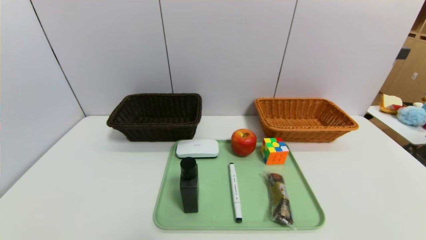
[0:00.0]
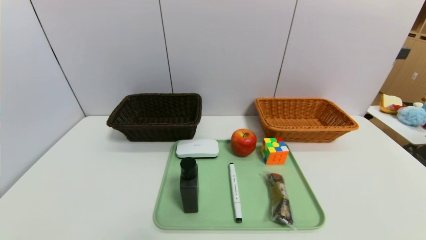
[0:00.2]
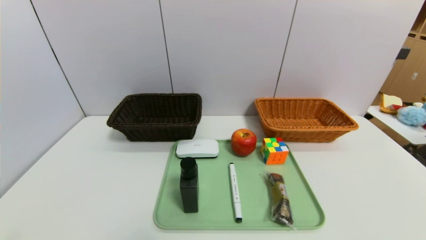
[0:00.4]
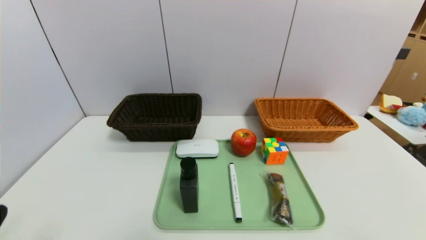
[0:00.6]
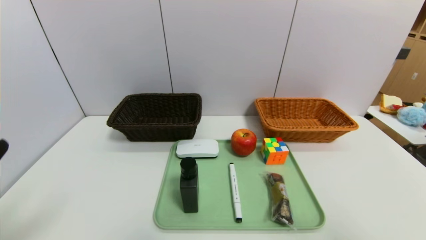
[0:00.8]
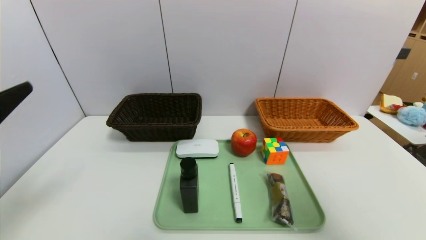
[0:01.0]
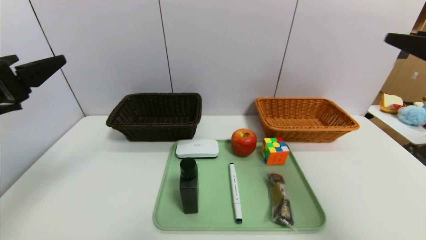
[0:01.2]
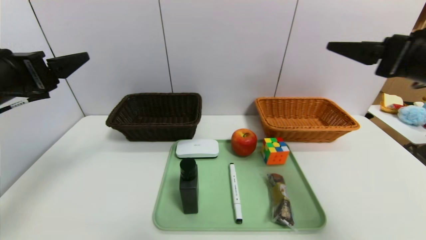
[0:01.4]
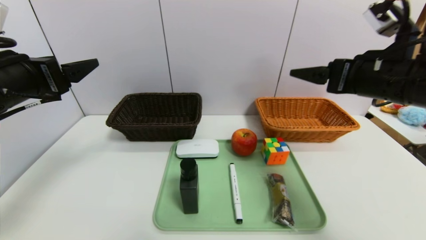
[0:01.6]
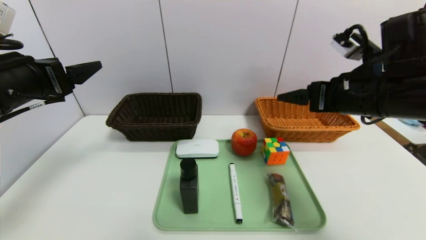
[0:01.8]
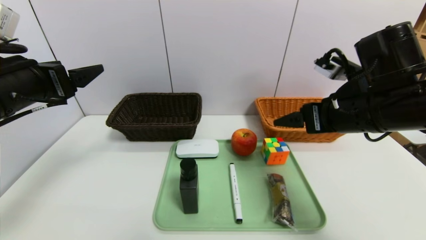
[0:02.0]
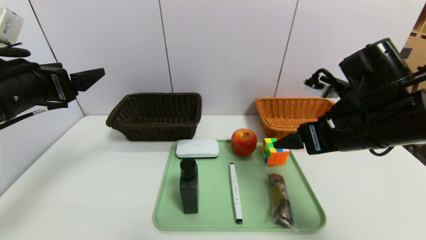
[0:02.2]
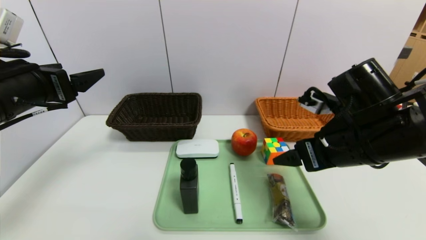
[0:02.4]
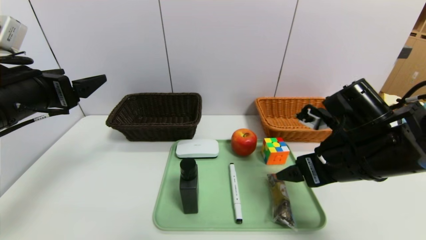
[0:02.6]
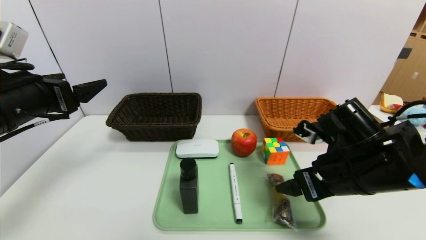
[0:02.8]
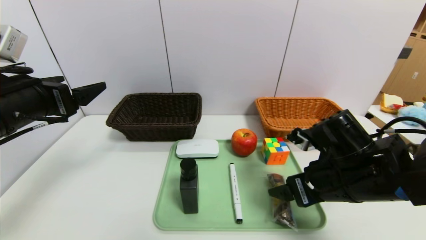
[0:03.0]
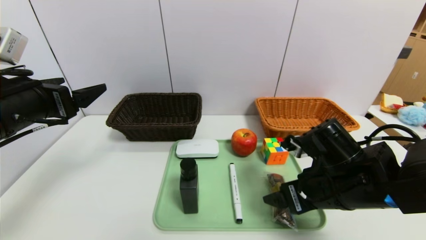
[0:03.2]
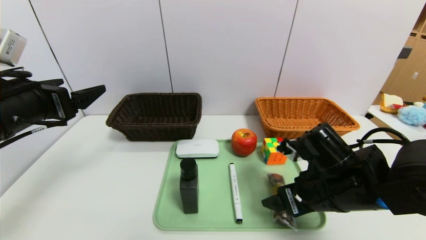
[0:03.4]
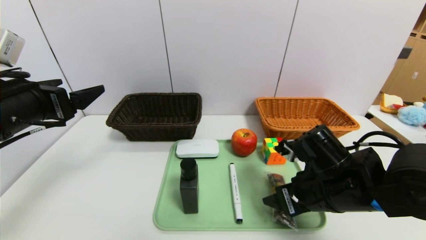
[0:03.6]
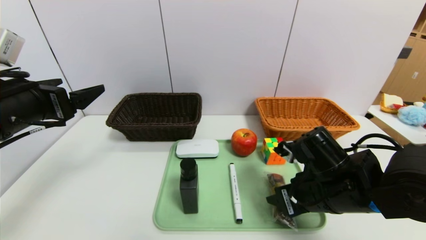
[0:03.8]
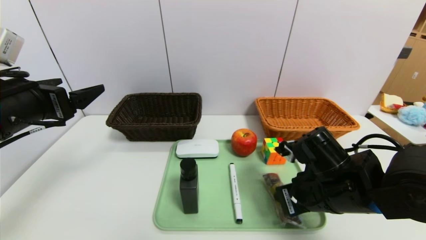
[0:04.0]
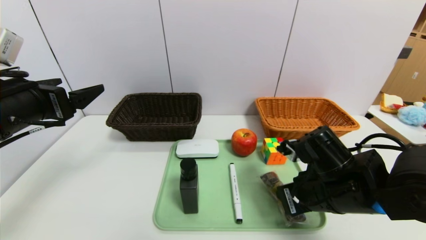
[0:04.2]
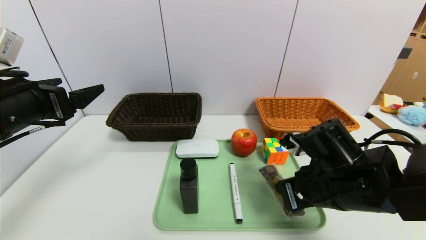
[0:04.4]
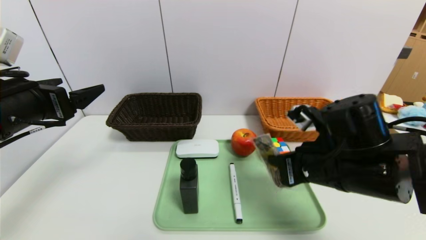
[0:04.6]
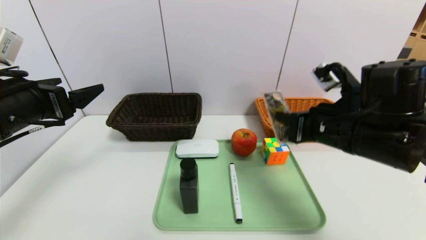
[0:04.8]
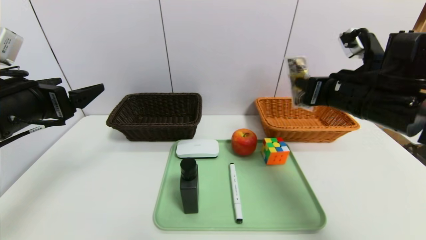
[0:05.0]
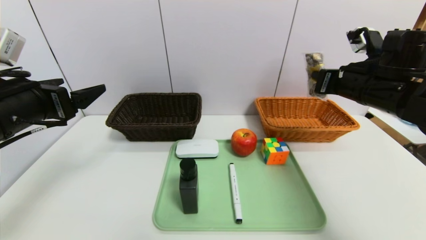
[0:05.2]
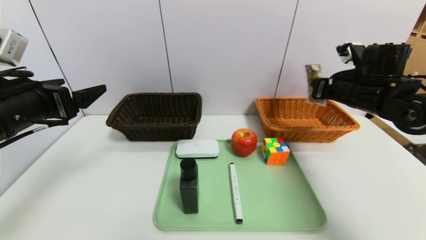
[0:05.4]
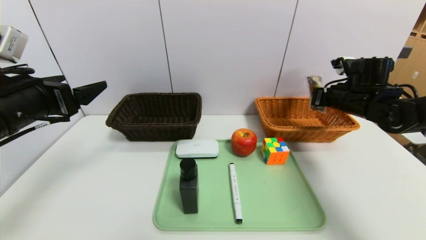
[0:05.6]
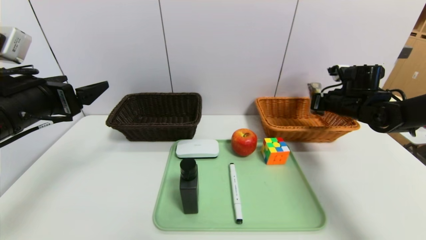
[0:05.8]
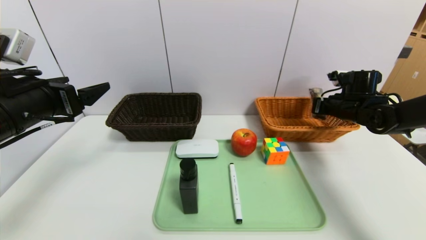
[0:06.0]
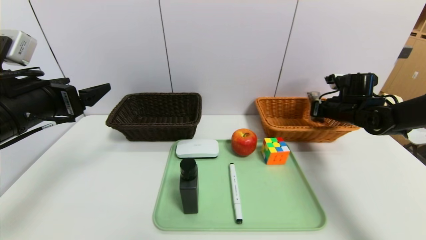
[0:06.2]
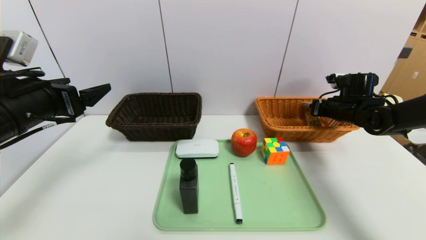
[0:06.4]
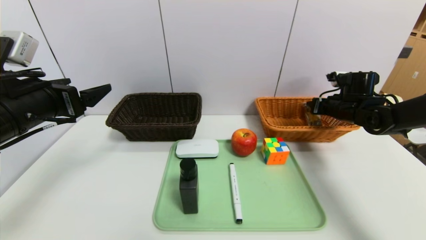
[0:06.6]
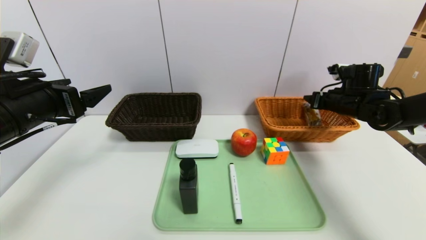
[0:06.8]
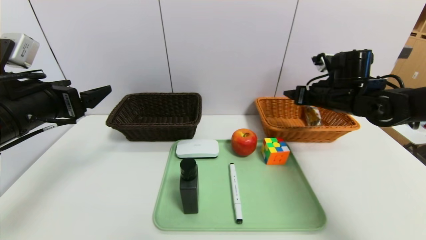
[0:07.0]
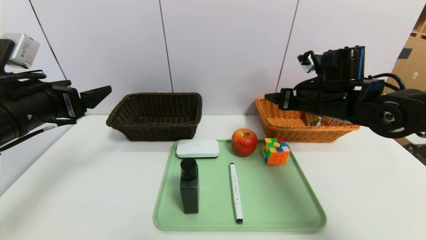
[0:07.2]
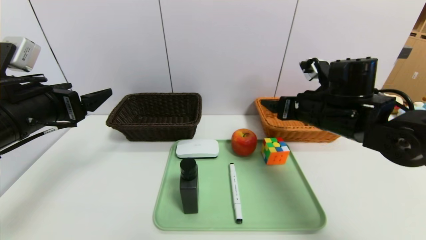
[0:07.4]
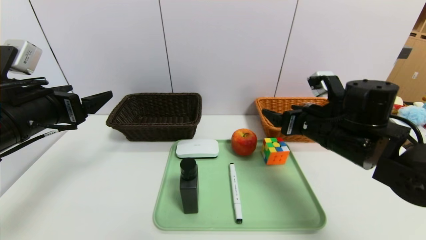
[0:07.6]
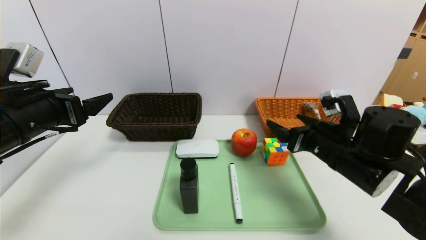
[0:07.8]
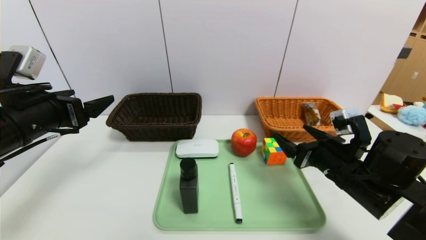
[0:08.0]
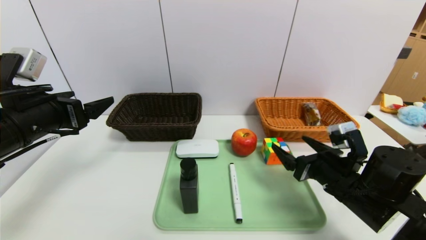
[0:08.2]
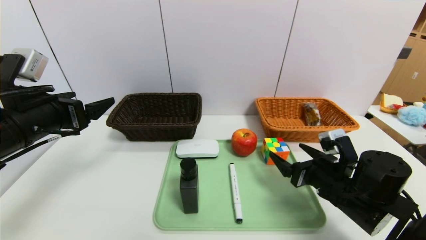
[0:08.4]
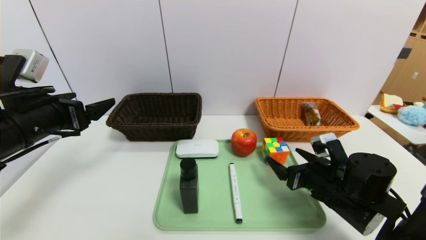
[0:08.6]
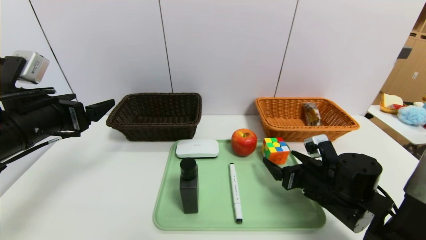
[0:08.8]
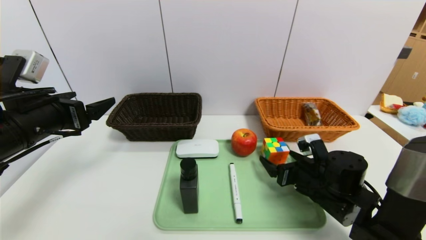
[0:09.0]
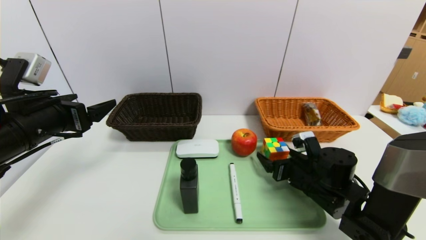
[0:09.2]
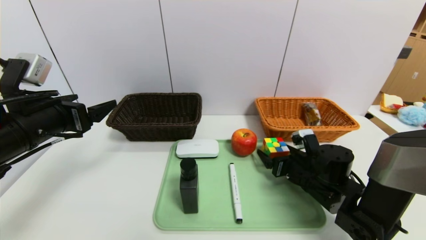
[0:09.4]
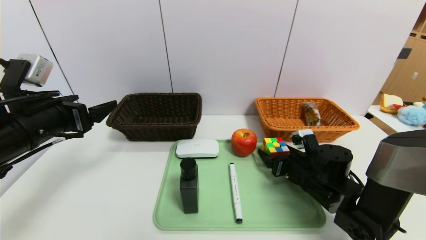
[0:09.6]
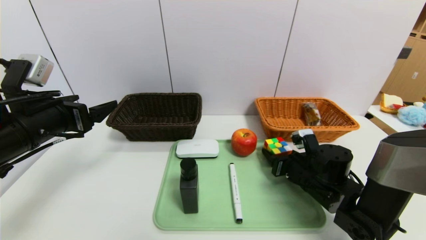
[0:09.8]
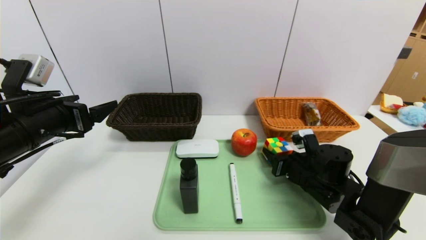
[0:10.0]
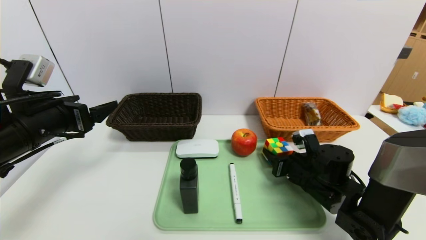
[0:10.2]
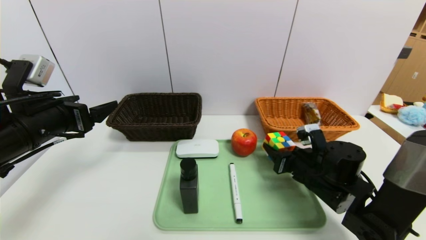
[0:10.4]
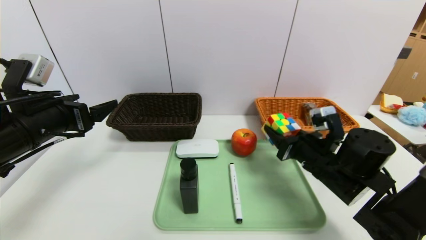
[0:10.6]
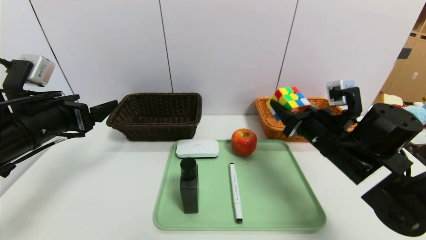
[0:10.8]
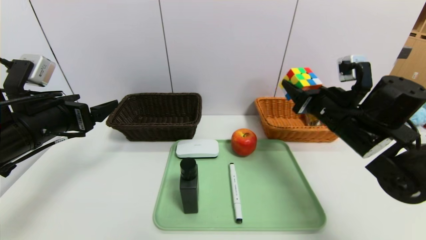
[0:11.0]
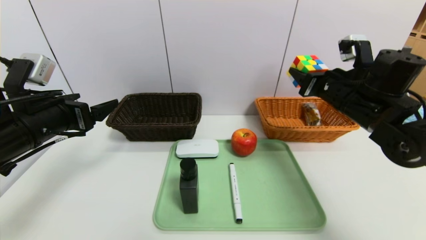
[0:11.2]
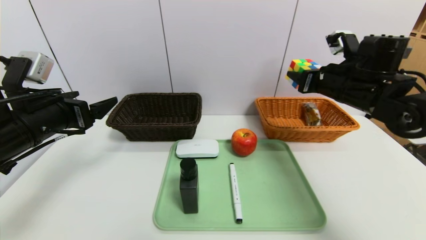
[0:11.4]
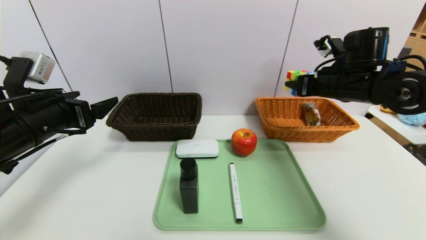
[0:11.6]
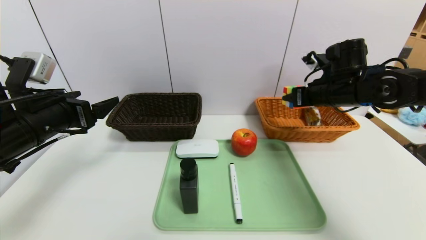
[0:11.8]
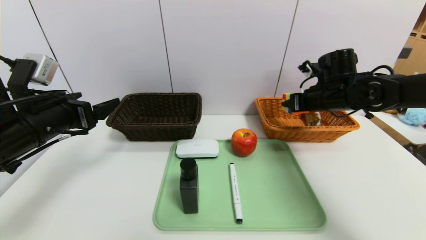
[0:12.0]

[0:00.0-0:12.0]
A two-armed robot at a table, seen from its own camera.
Task of the whole recording: place the food in the right basket with the right gripper, and place the non food items in the left basket with the left gripper.
Step, 0:00.0 to 0:06.8: Grasp the chocolate and put it in the right basket.
0:00.0 to 0:01.6: The grippers both shift forward and upward by roughly 35 cm.
0:01.6 to 0:03.0: The right gripper heads downward, covering approximately 15 cm.
0:03.0 to 0:04.4: The right gripper closes.
0:04.4 to 0:06.0: The right gripper goes about 25 cm forward and to the right.
0:06.0 to 0:07.6: The right gripper travels backward and to the left by some 20 cm, and opens up.
0:07.6 to 0:09.0: The right gripper goes about 15 cm downward.
0:09.0 to 0:10.4: The right gripper closes up.
0:10.4 to 0:12.0: The right gripper shifts approximately 20 cm upward, forward and to the right.

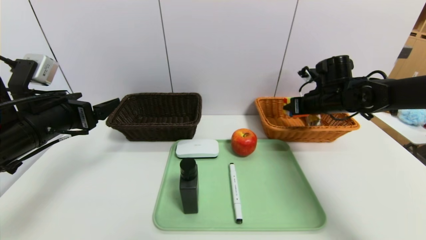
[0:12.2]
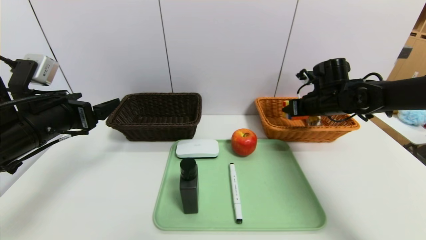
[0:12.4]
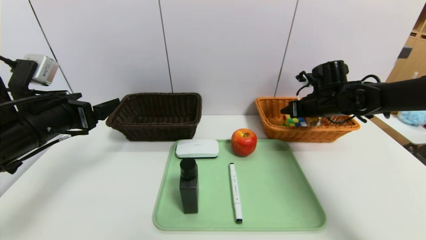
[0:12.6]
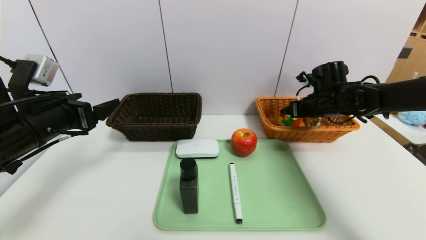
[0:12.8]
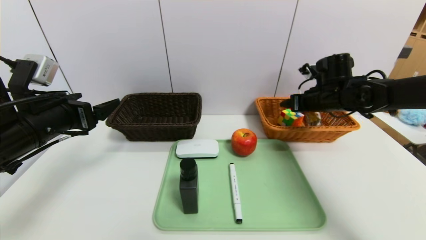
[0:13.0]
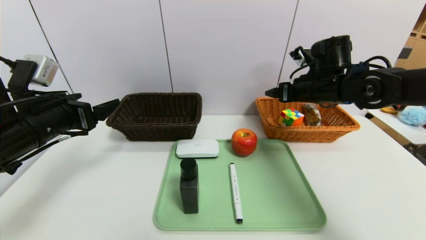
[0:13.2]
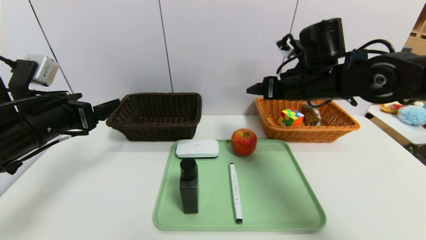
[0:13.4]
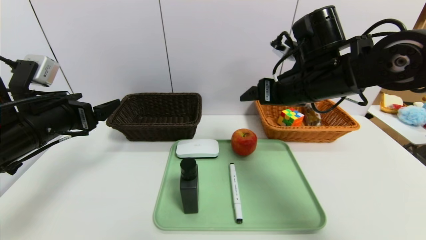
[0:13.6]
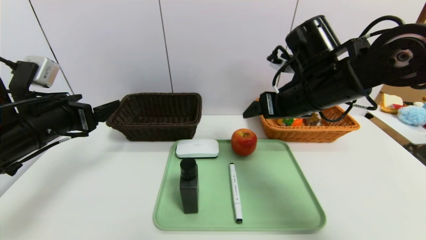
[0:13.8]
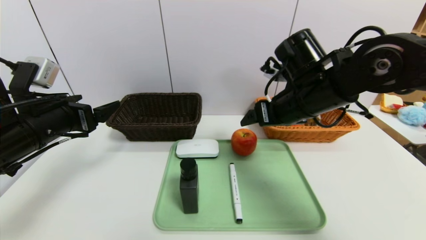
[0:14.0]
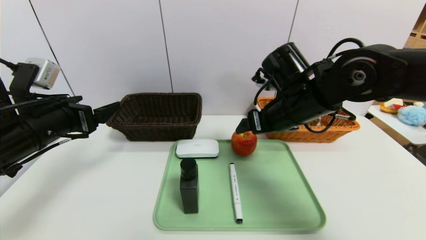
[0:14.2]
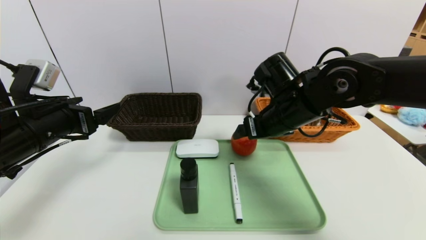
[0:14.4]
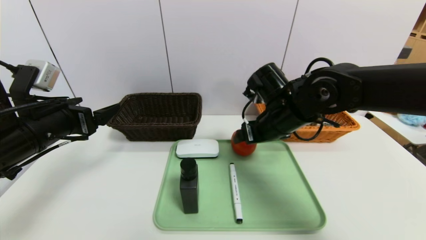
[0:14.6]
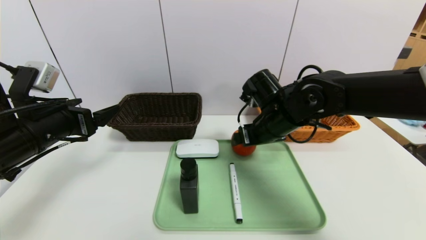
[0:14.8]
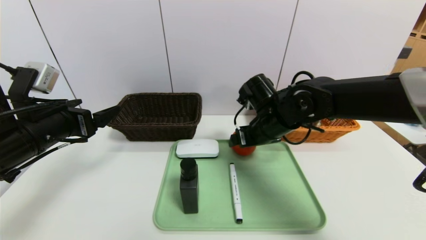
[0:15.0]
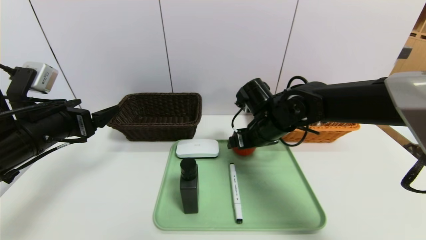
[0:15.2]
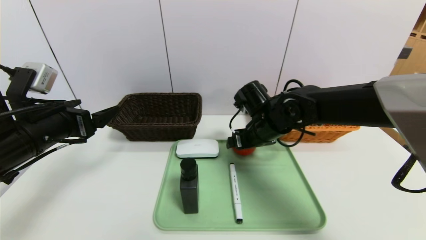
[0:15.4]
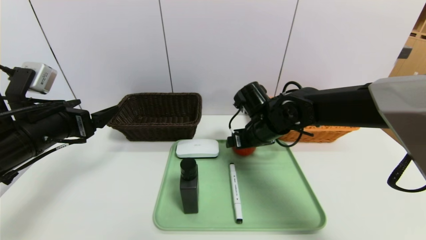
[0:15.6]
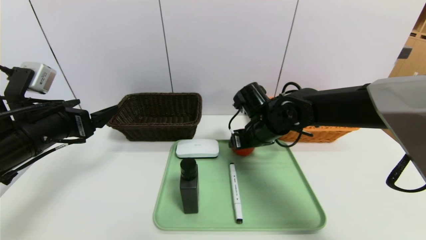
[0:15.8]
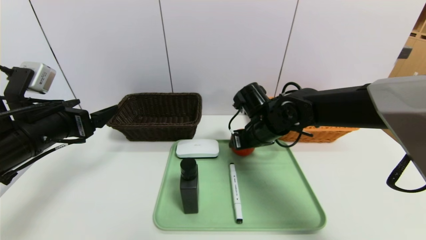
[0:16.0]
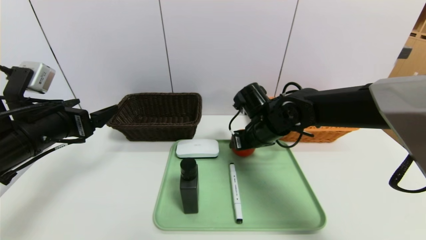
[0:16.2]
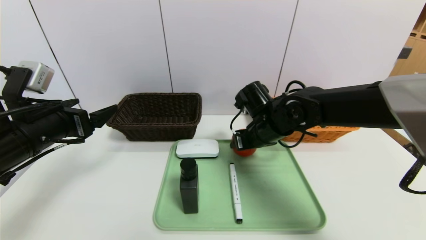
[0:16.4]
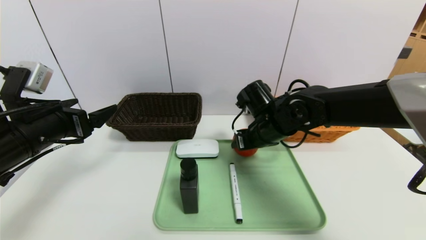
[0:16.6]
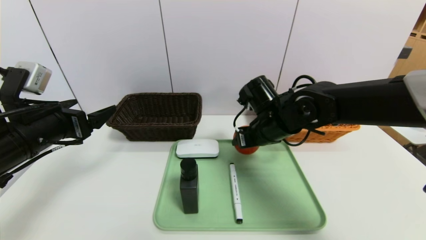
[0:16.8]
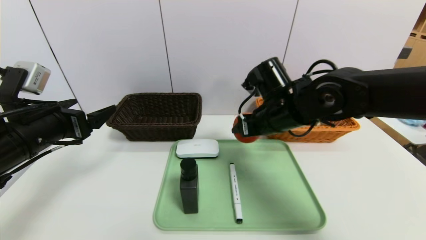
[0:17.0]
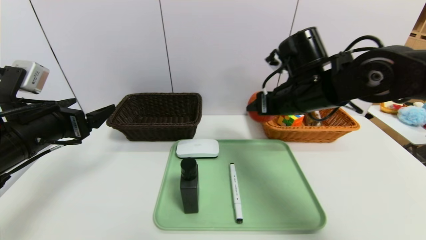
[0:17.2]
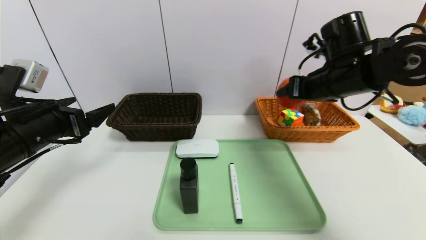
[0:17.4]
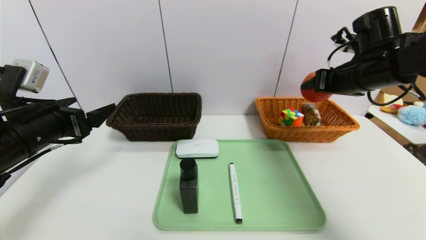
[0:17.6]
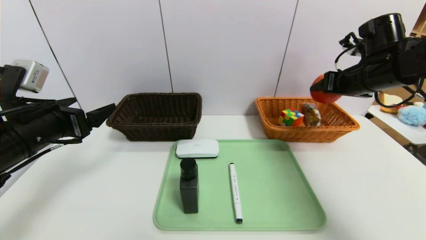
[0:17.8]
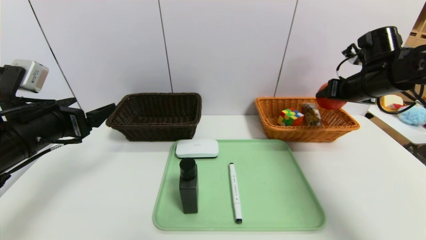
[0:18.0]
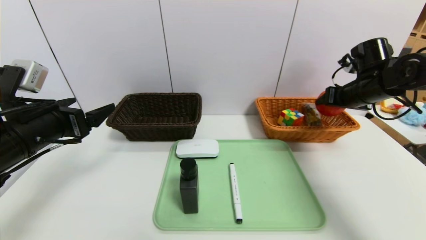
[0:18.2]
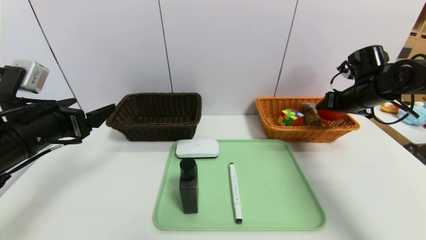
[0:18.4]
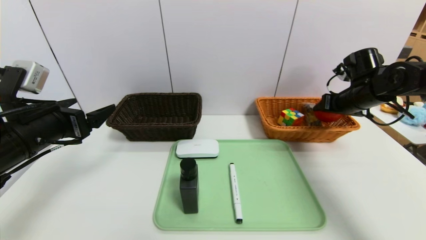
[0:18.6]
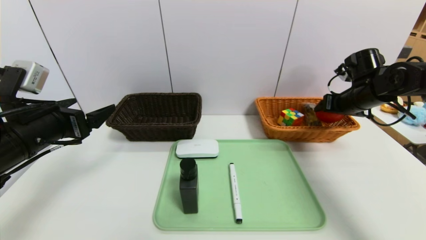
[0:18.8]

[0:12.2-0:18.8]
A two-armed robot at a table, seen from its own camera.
Task of the whole recording: place the food in the right basket with the right gripper, and place the non food items in the left basket with the left gripper.
0:12.2 to 0:13.8: The right gripper heads to the left, backward and upward, covering some 20 cm, and opens.
0:13.8 to 0:15.4: The right gripper travels downward, forward and to the left by roughly 15 cm.
0:15.4 to 0:17.2: The right gripper travels upward and to the right by roughly 10 cm.
0:17.2 to 0:18.8: The right gripper shifts approximately 20 cm to the right and forward.
